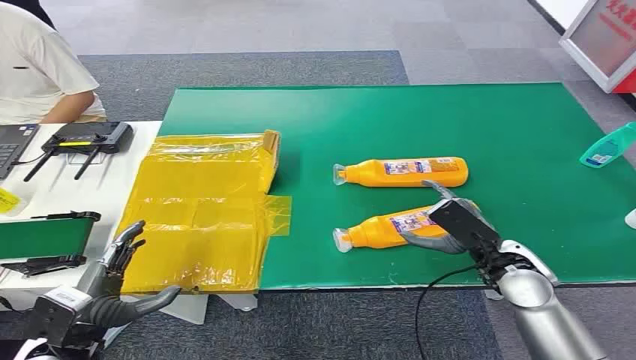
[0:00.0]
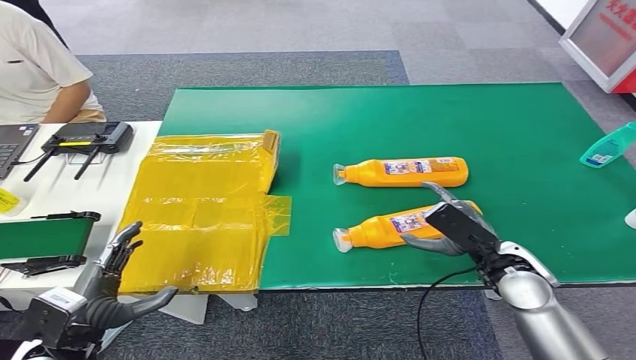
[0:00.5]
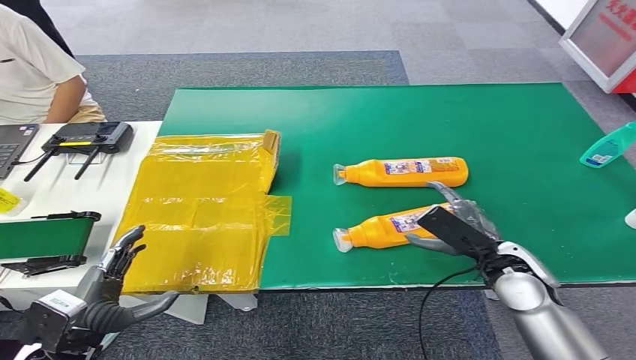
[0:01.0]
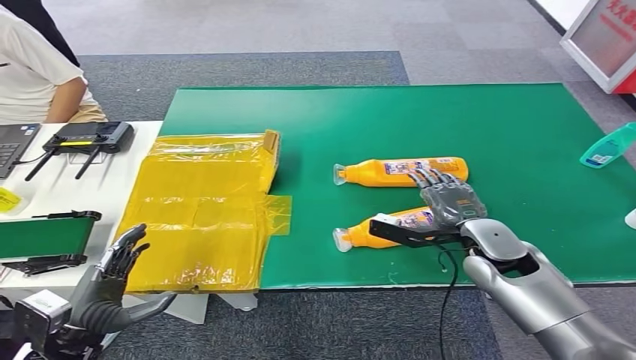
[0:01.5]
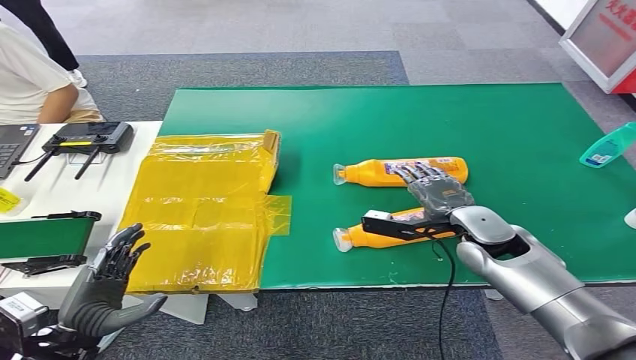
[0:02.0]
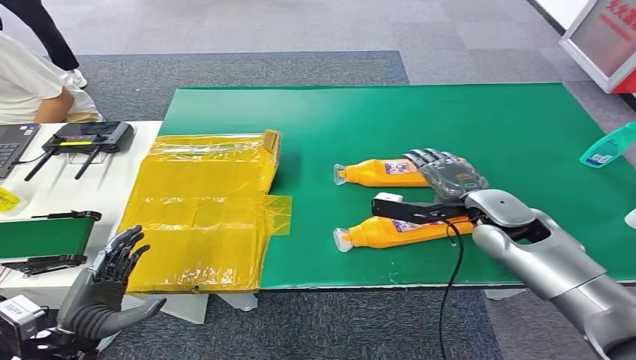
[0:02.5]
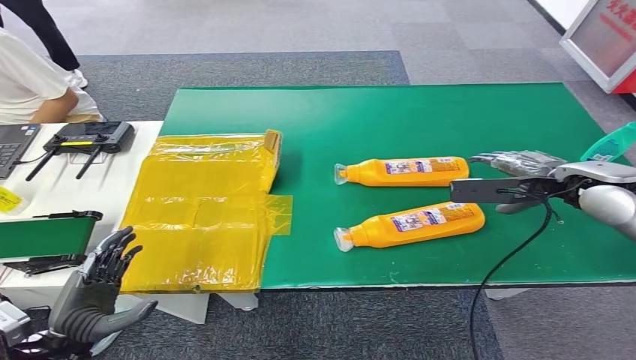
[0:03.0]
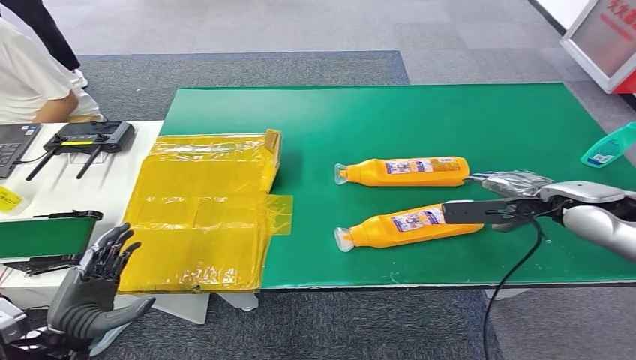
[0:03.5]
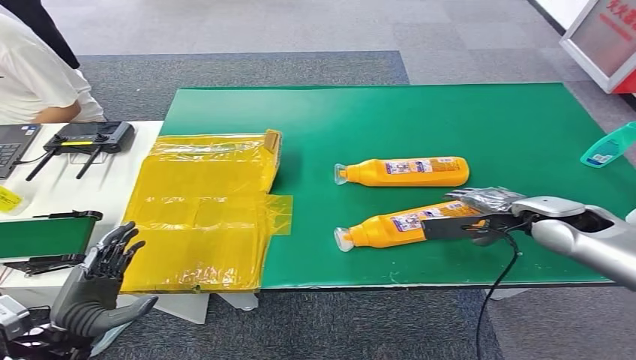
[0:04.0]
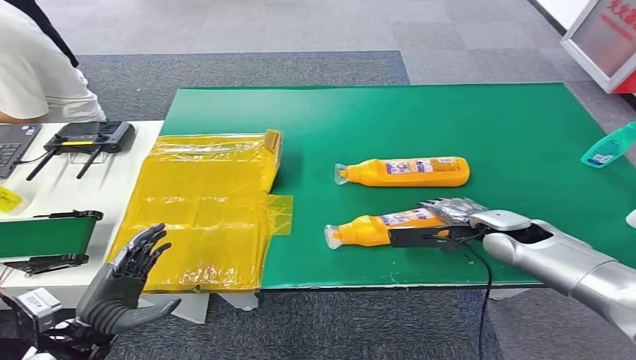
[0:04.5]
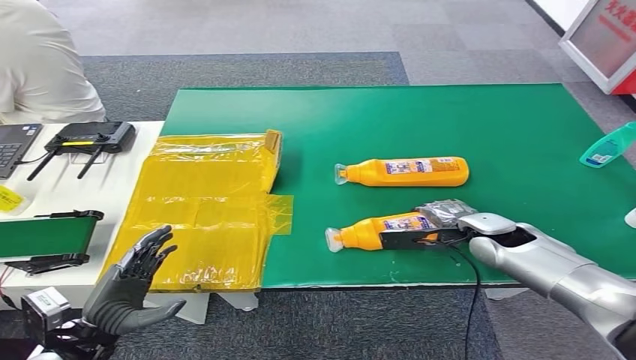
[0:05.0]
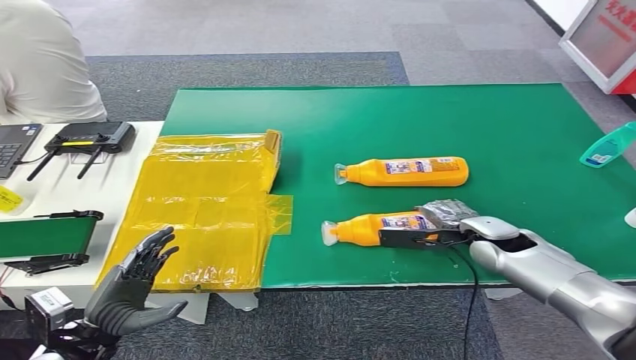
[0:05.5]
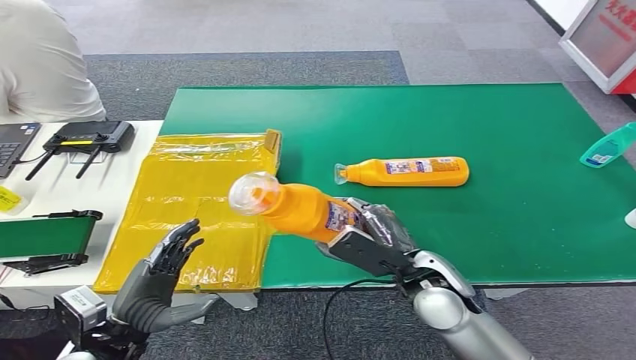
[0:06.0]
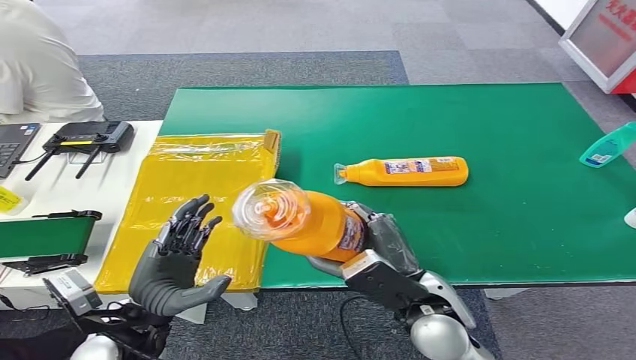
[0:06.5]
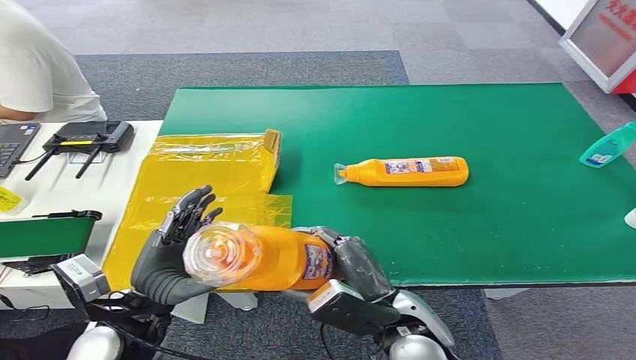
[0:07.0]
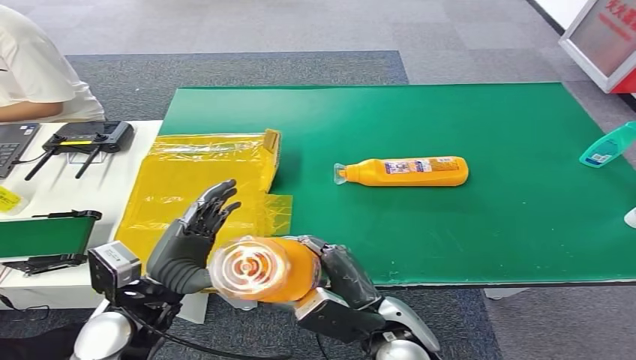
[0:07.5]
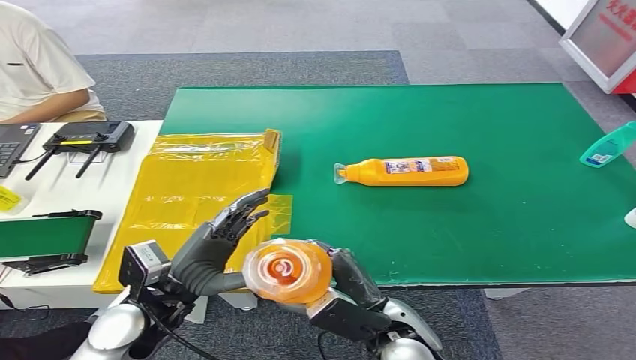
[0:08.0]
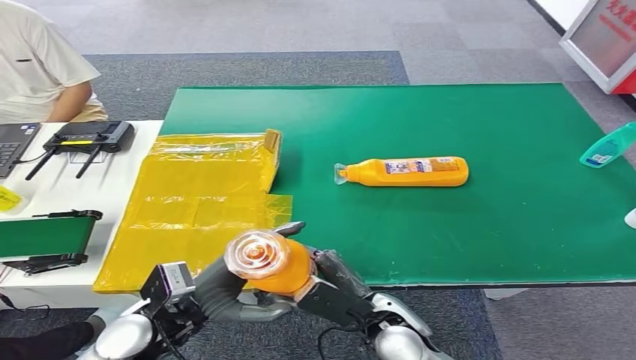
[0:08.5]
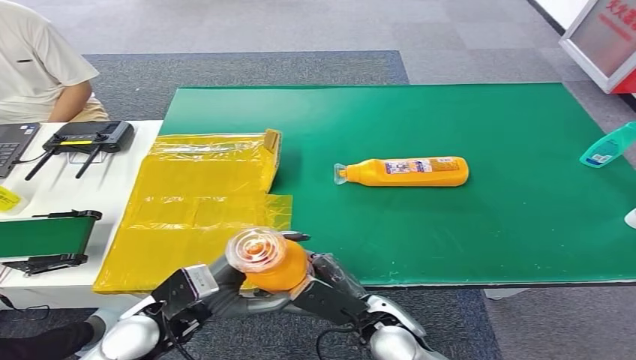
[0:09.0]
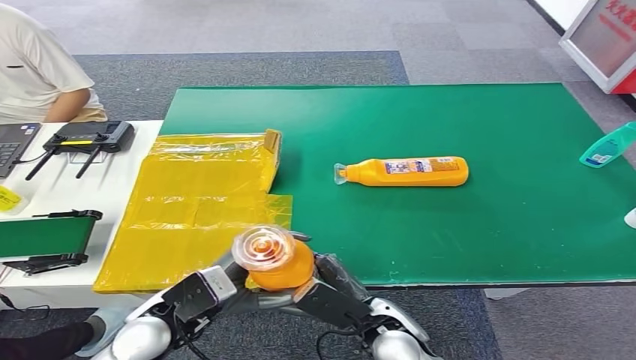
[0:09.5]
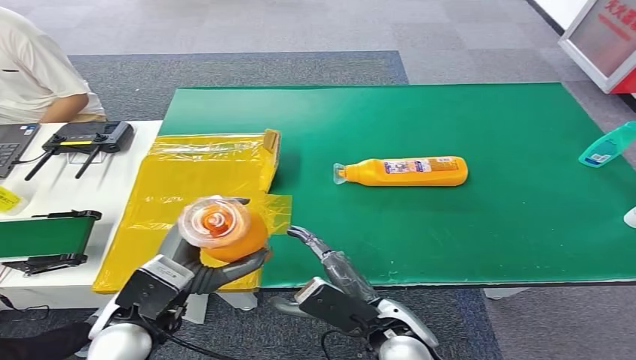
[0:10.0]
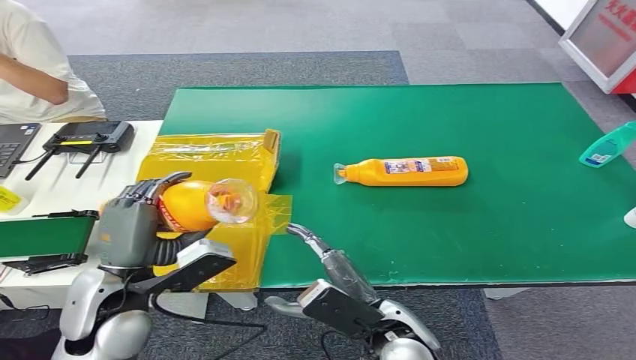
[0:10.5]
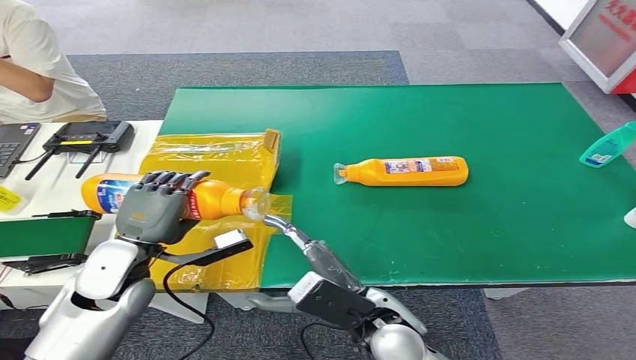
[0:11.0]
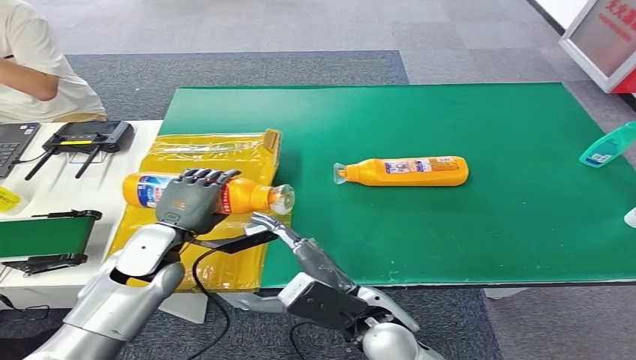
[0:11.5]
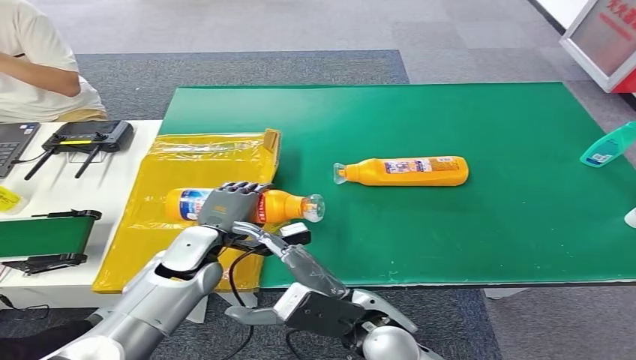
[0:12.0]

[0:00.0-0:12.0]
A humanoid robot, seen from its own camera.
Step, 0:00.0 to 0:07.0: Pick up the bottle from the table.
0:02.0 to 0:04.0: The right hand goes some 10 cm to the right and upward.
0:06.0 to 0:08.0: The right hand travels backward and to the left by approximately 10 cm. The left hand heads to the right and forward, covering approximately 10 cm.
0:10.0 to 0:12.0: The right hand changes place by some 5 cm. The left hand shifts roughly 15 cm forward and downward.

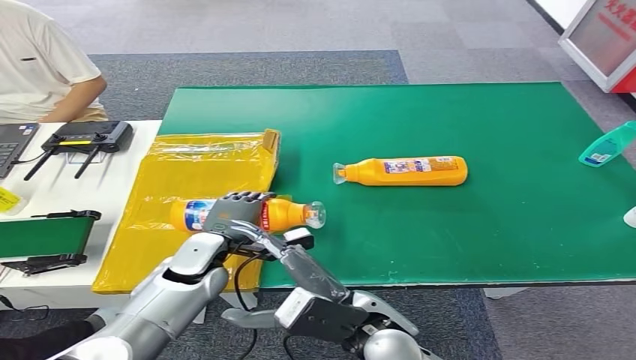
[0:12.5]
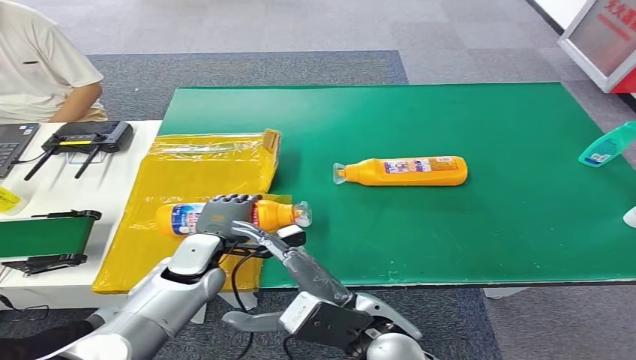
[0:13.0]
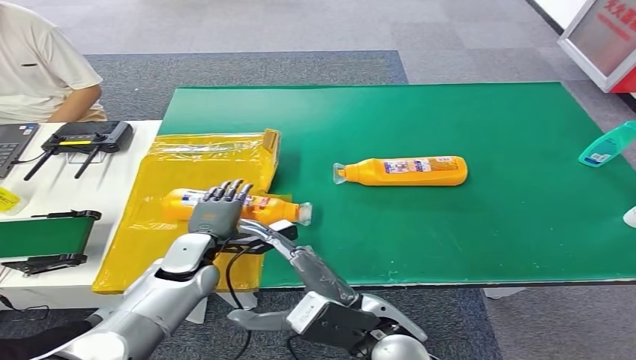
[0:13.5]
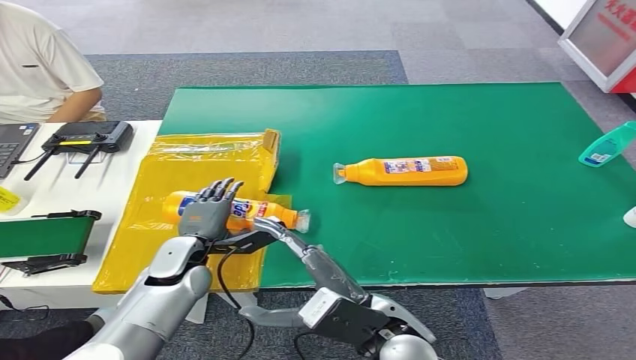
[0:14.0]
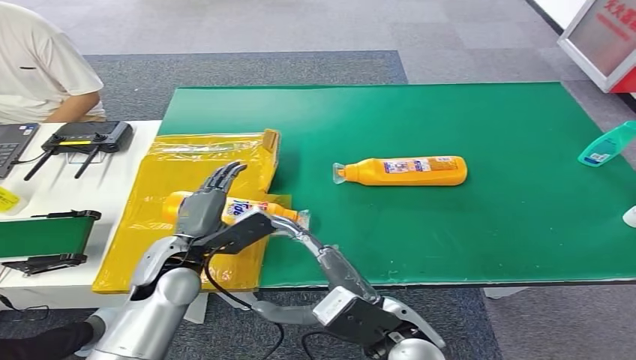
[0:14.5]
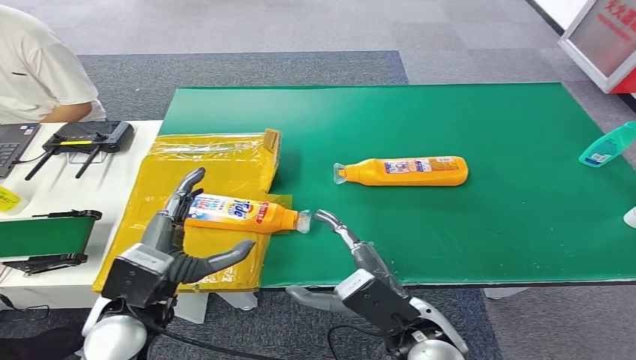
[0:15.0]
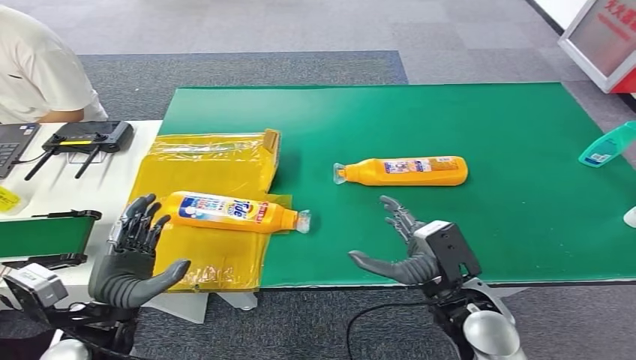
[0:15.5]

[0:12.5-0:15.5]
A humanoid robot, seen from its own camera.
Step, 0:12.5 to 0:15.0: Turn the bottle to the front side.
0:12.5 to 0:14.0: The hands move only a little.
0:14.0 to 0:15.5: The left hand is displaced backward, upward and to the left by some 15 cm. The right hand shifts roughly 10 cm to the right.
